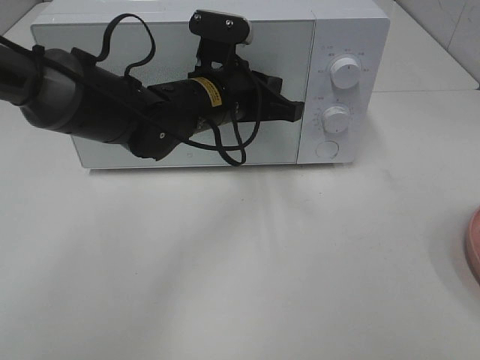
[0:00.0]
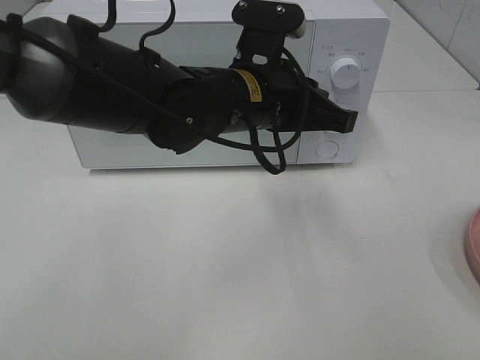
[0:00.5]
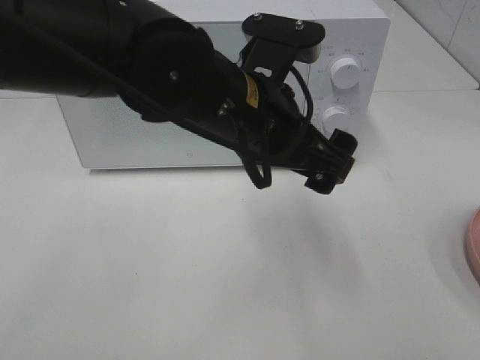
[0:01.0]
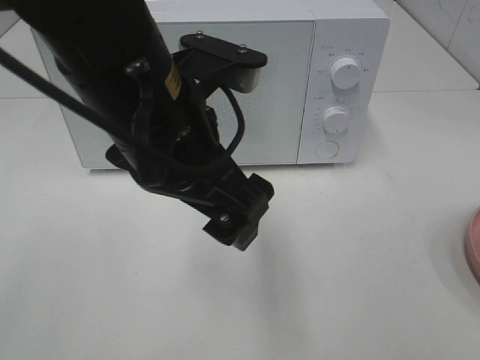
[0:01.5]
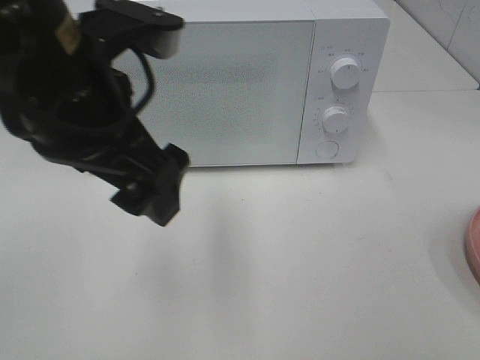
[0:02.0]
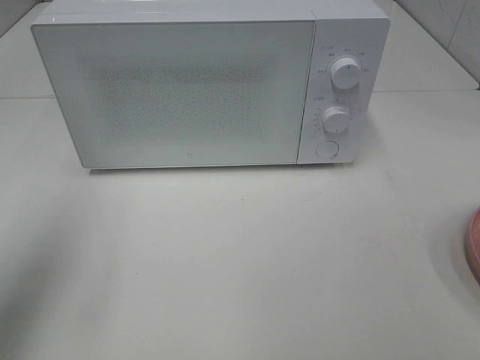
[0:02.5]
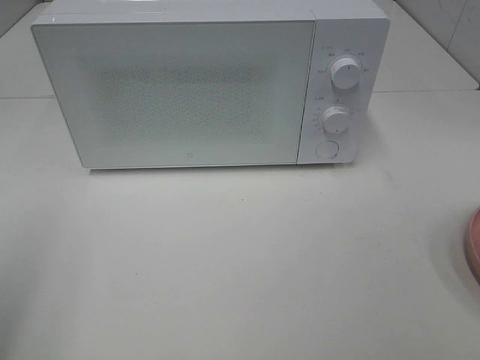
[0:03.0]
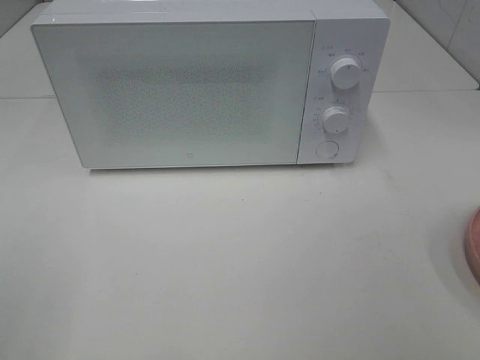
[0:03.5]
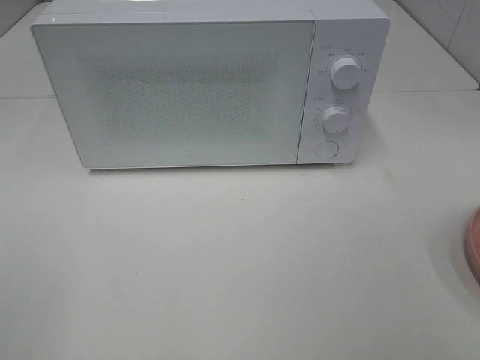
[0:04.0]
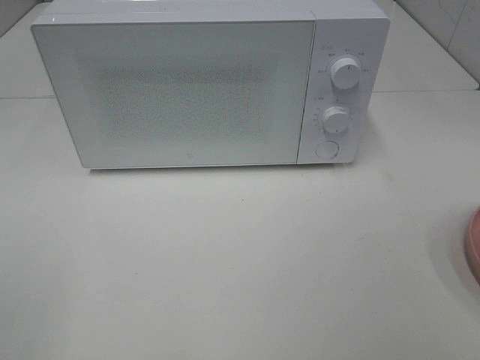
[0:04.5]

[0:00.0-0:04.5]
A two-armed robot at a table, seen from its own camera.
Task of the whole recording: Heat the burger.
0.0 to 2.0 s: The left gripper shifts some 20 cm backward, upward and to the left, and opens.
2.0 to 4.5 s: The left gripper goes some 30 cm backward and to the left.

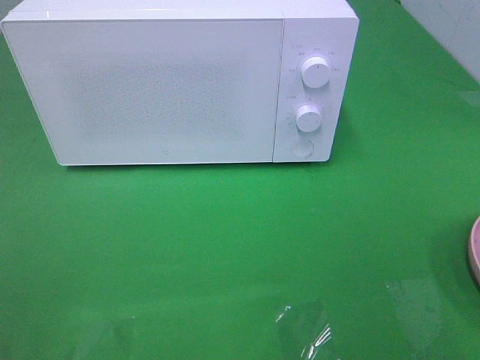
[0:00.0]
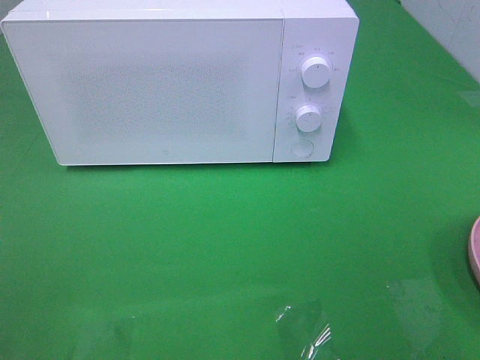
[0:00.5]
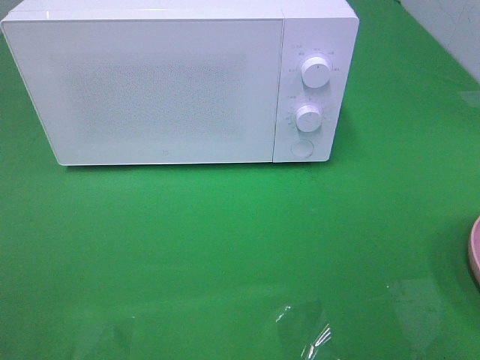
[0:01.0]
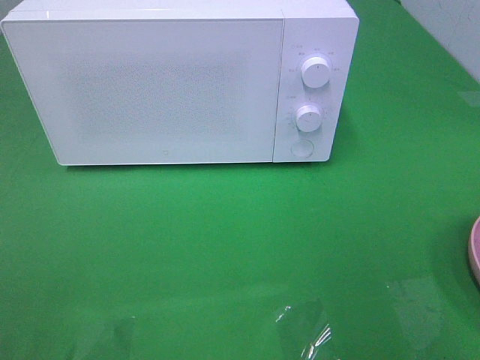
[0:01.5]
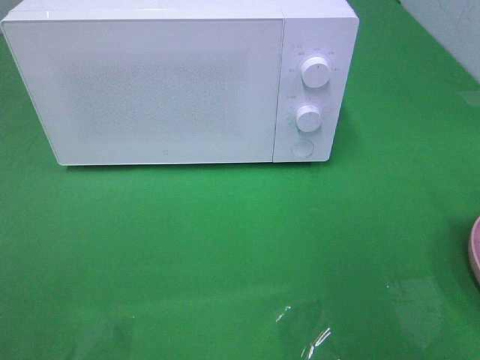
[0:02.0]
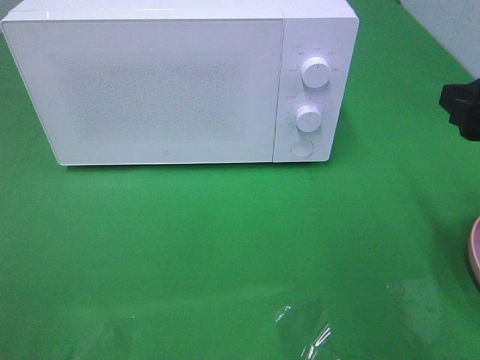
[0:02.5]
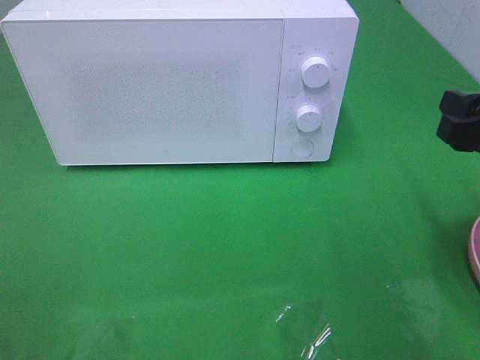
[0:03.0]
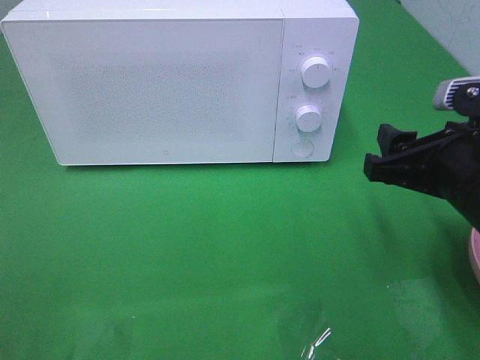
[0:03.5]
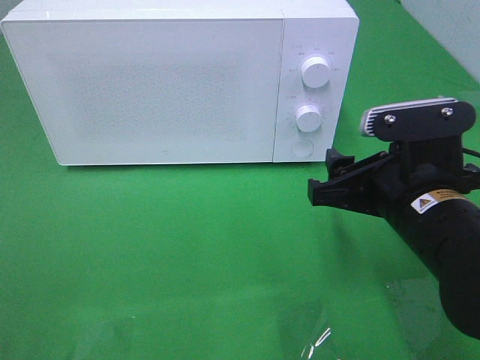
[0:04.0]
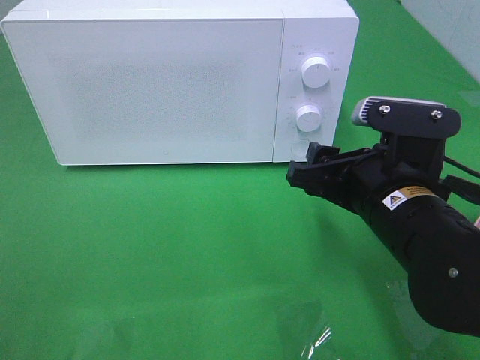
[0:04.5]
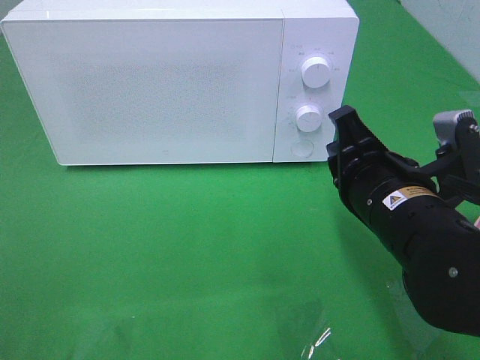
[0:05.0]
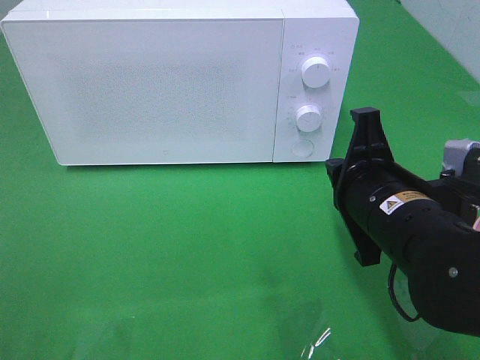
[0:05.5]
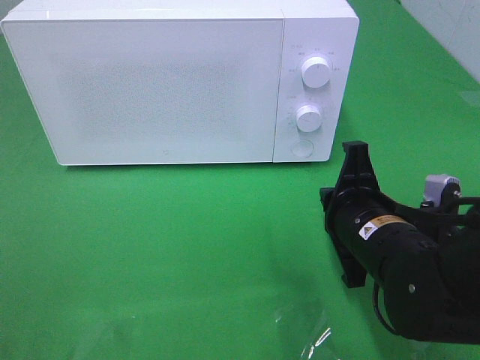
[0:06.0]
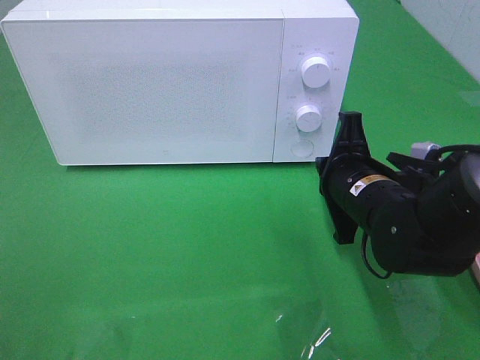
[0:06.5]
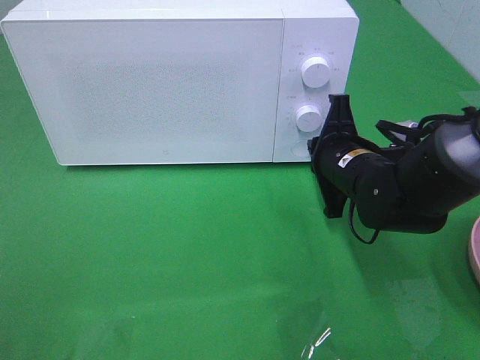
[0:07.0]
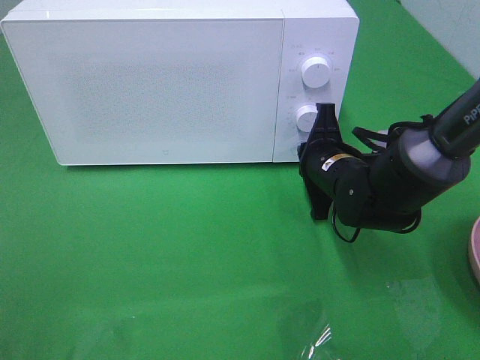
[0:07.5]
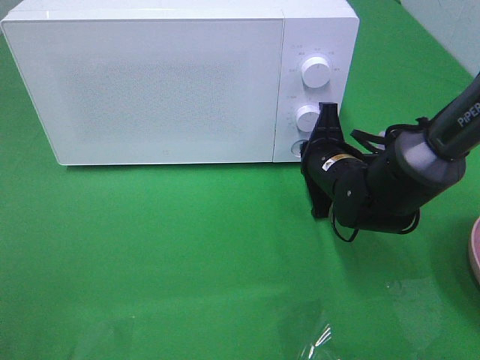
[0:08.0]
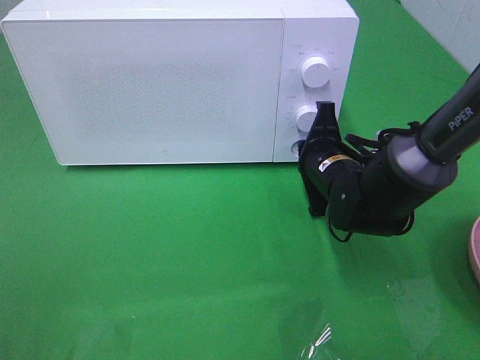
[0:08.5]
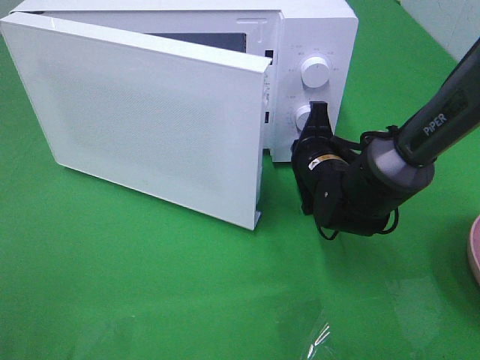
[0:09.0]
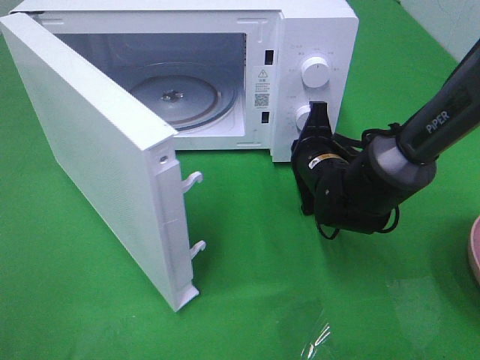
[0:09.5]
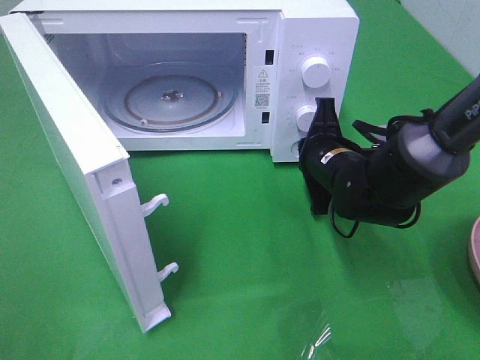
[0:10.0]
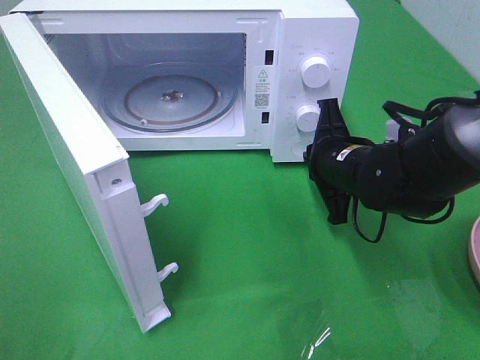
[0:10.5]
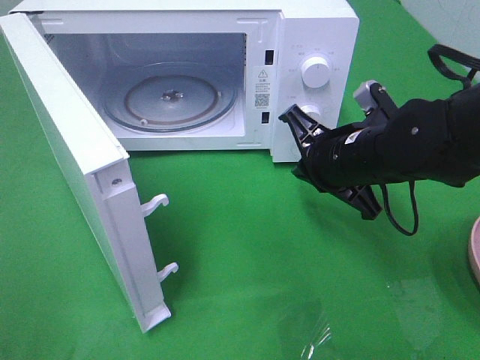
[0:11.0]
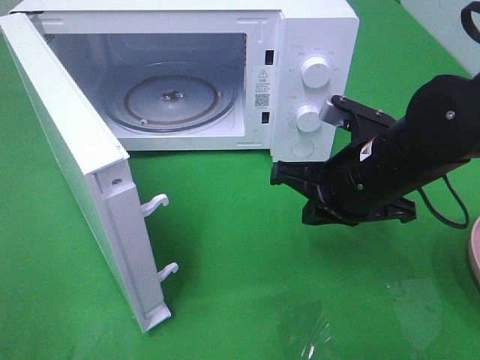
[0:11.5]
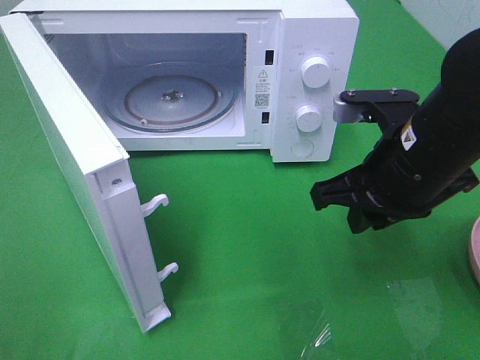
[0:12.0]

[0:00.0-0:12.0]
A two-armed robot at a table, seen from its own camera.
Task of the whole recording: Heat the burger.
Step, 0.0 to 10.5 s: Right hand: press the switch.
2.0 to 4.0 s: The right gripper goes about 20 cm downward and to the left.
4.0 to 6.0 s: The right gripper heads downward, covering some 5 cm, and closes.
6.0 to 8.0 s: The right gripper shifts about 10 cm forward.
10.0 to 12.0 s: The right gripper is displaced upward and backward by some 15 cm.

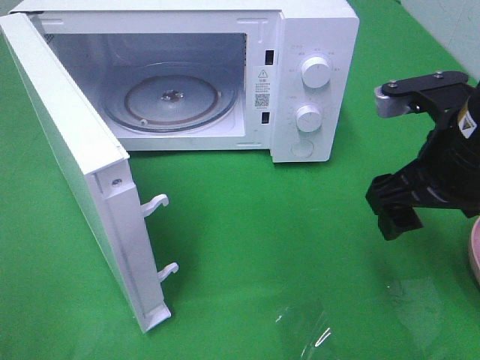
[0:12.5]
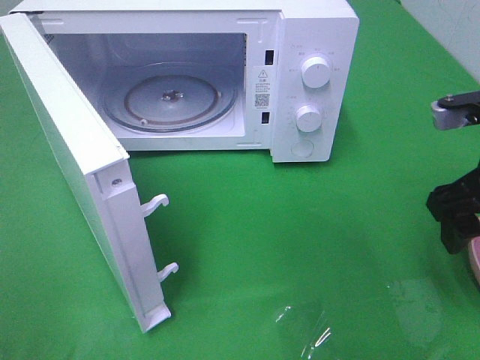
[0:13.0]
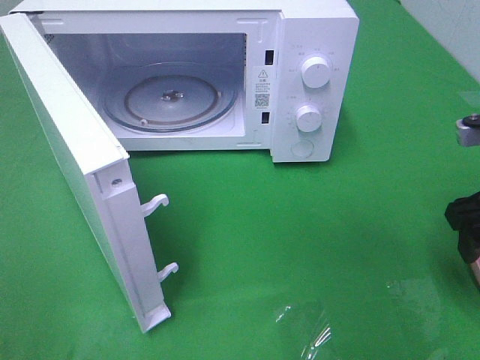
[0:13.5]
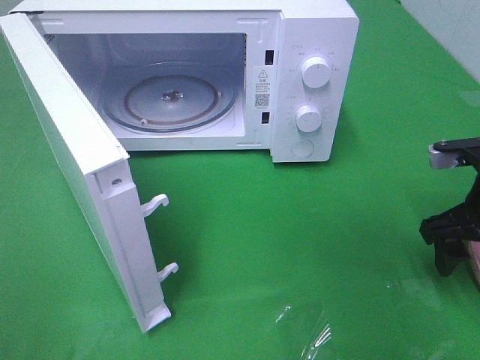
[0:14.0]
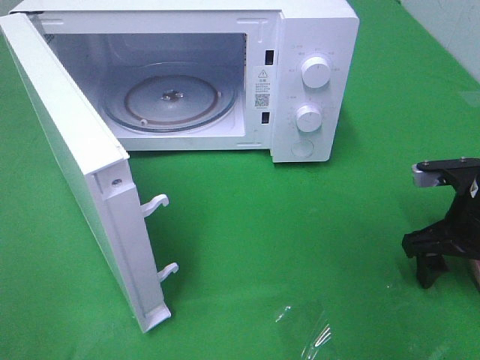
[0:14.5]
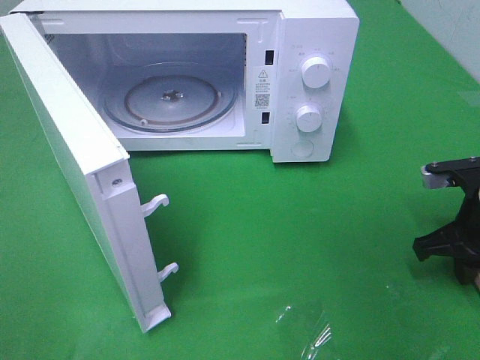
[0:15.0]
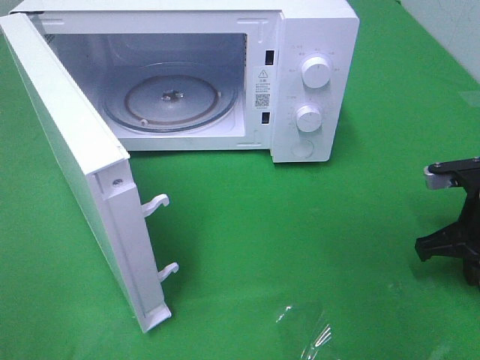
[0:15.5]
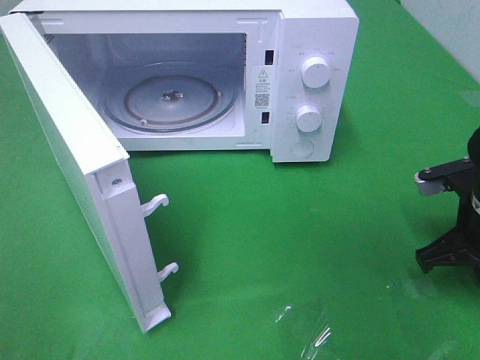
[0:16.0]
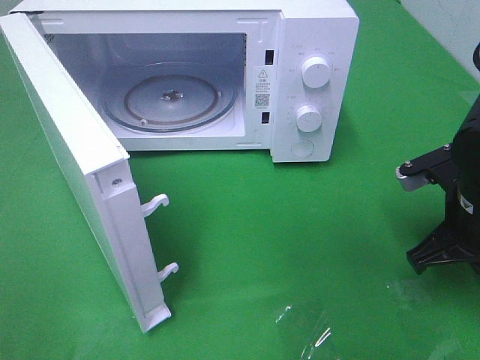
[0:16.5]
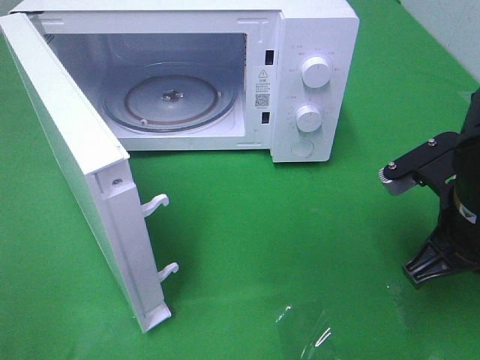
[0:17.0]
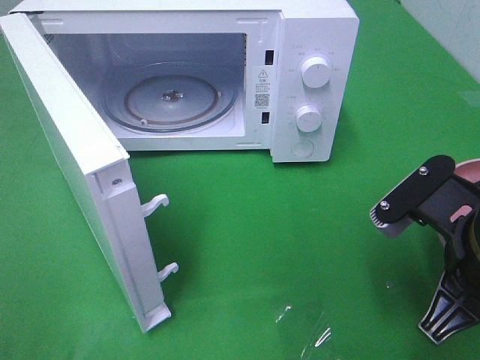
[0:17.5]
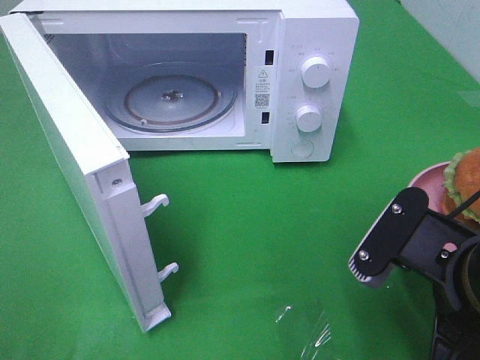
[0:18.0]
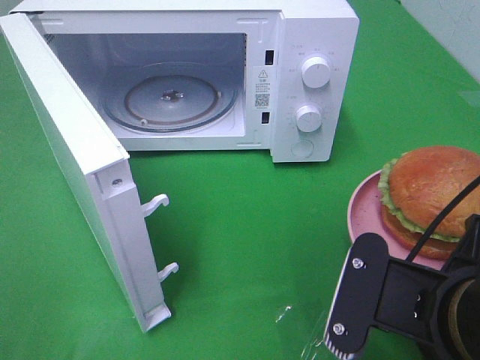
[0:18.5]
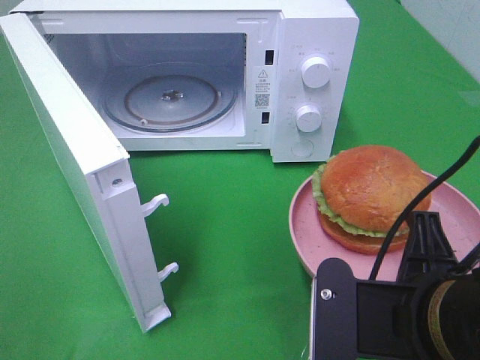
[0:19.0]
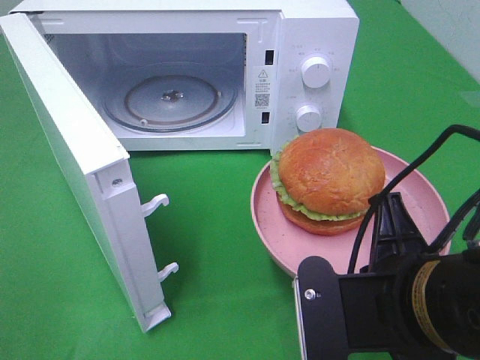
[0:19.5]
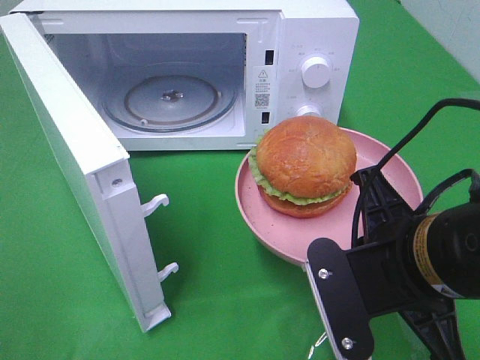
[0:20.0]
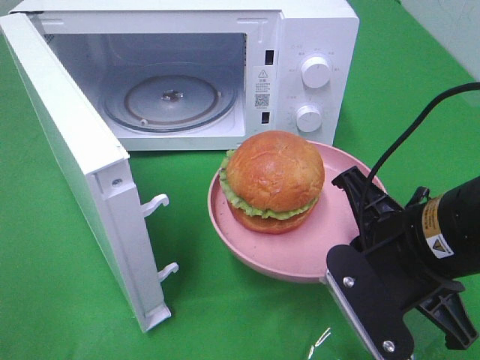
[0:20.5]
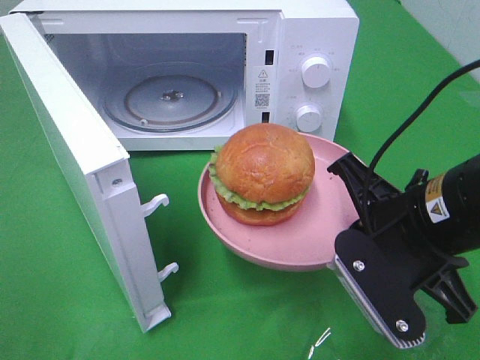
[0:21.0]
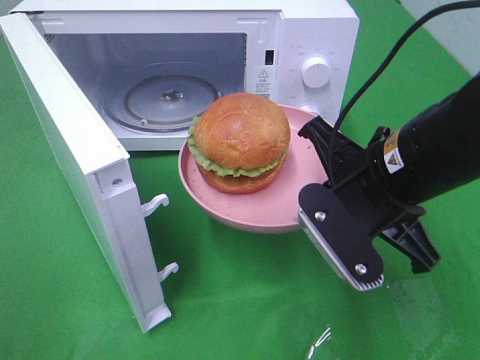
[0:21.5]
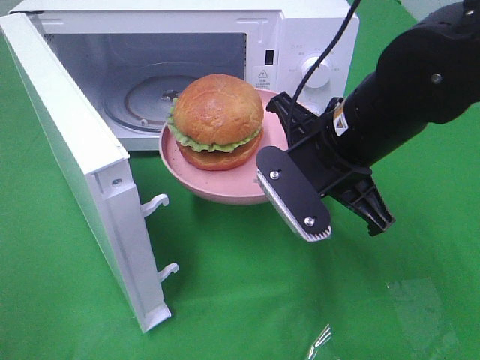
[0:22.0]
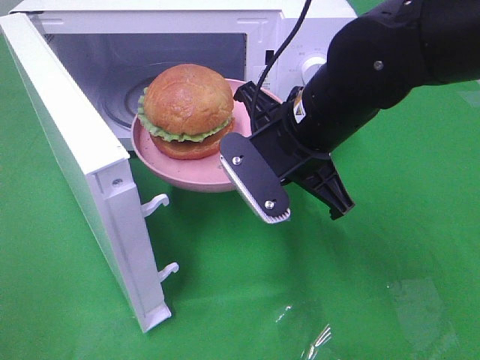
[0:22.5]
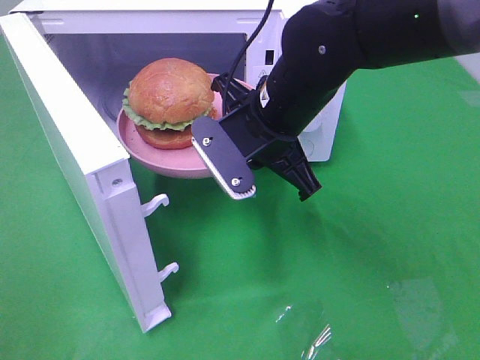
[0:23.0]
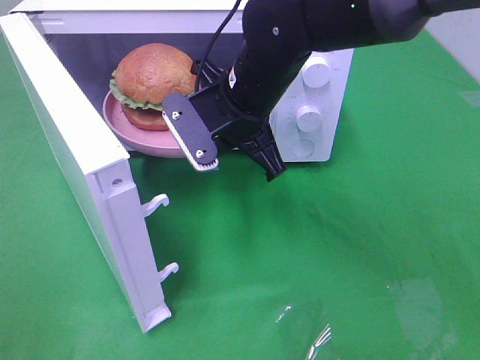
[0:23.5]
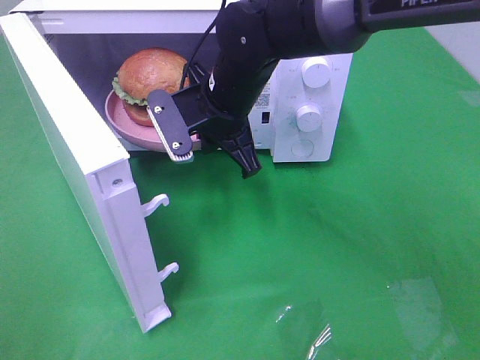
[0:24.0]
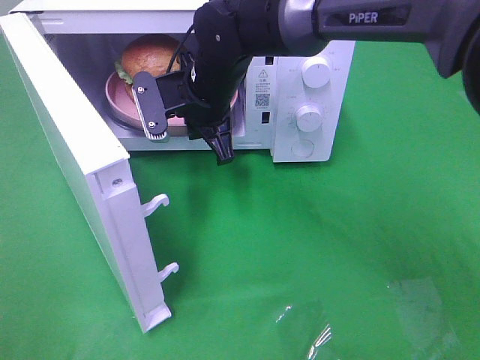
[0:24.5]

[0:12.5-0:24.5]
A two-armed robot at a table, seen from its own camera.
Task of the whole recording: Heat the burger.
Step, 12.5 to 15.5 s: Right hand: grab the plate with the hamburger.
12.5 to 14.5 s: The right gripper is displaced downward and to the right by about 15 cm.
14.5 to 16.5 s: The right gripper ends up roughly 5 cm from where it was, and closes.
16.5 to 18.5 s: The right gripper is displaced backward and to the left by approximately 15 cm.
18.5 to 20.5 s: The right gripper travels forward by about 5 cm.
20.5 to 22.5 s: The right gripper is displaced forward and to the left by roughly 15 cm.
22.5 to 24.5 s: The right gripper heads forward and to the left, covering roughly 15 cm.
